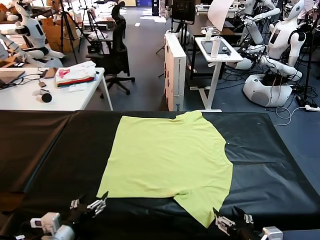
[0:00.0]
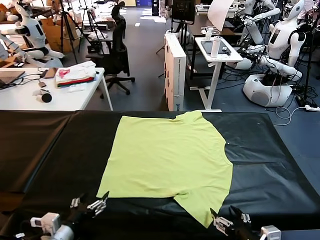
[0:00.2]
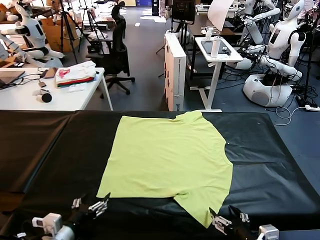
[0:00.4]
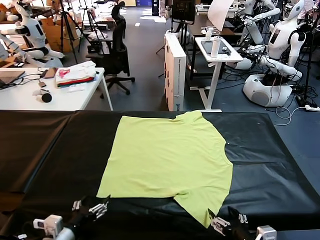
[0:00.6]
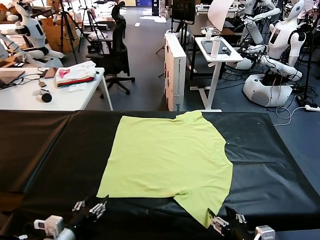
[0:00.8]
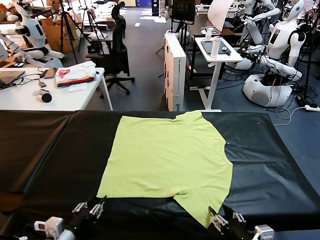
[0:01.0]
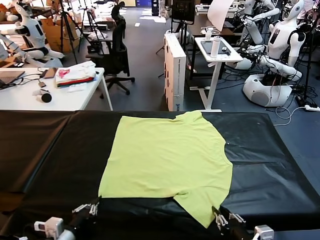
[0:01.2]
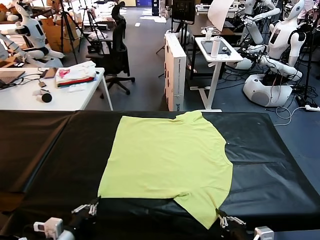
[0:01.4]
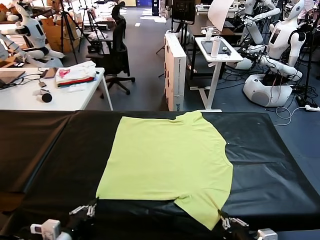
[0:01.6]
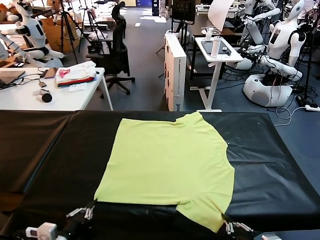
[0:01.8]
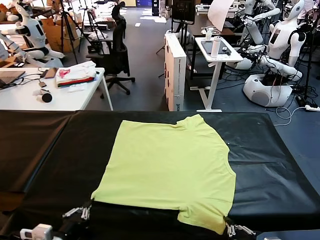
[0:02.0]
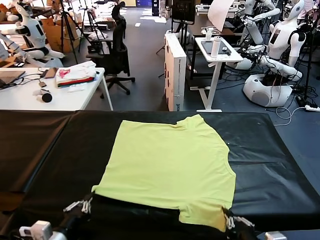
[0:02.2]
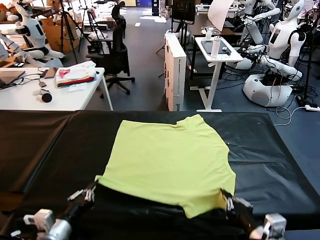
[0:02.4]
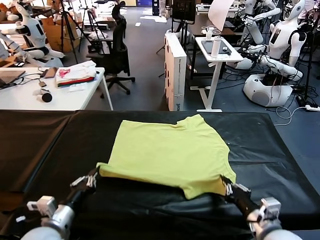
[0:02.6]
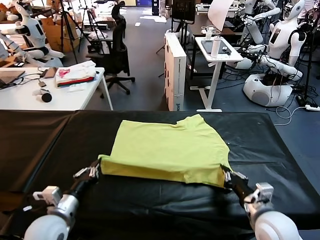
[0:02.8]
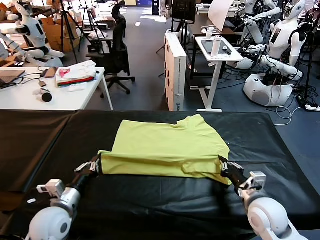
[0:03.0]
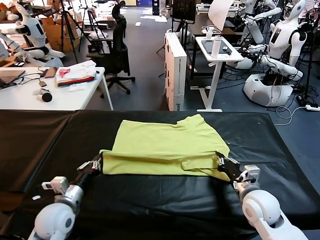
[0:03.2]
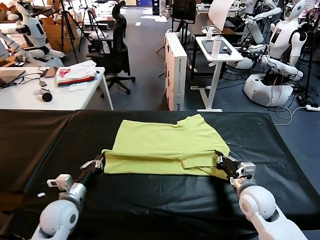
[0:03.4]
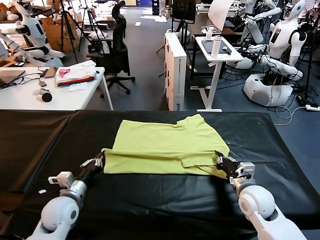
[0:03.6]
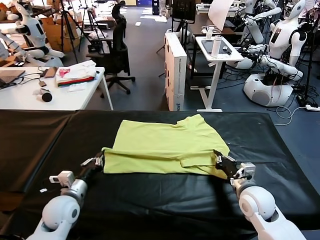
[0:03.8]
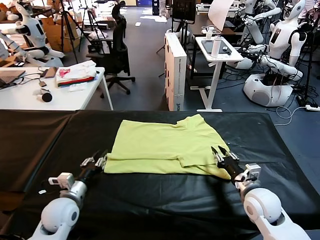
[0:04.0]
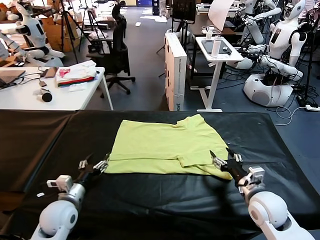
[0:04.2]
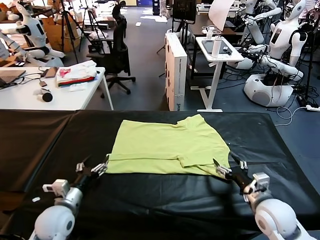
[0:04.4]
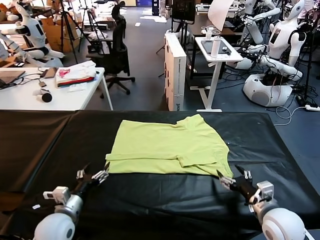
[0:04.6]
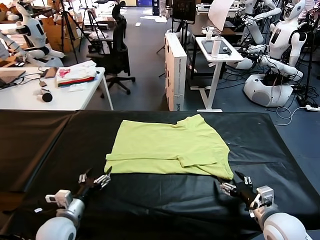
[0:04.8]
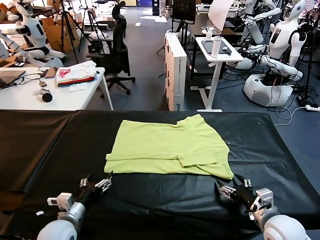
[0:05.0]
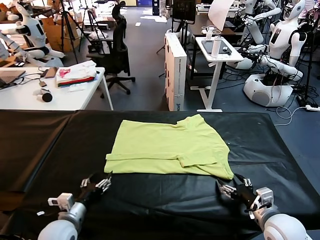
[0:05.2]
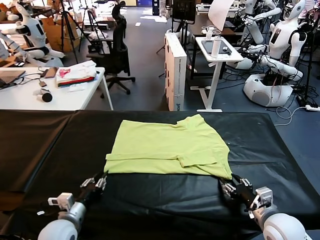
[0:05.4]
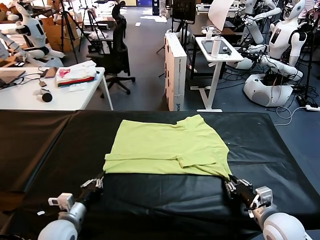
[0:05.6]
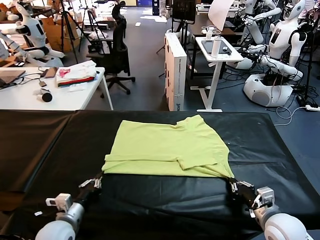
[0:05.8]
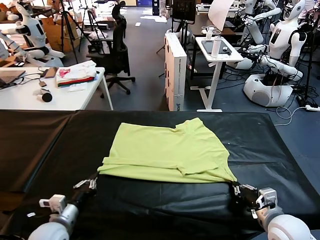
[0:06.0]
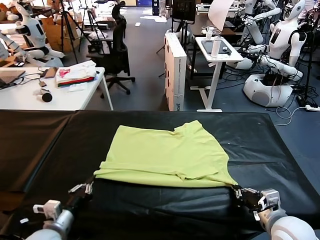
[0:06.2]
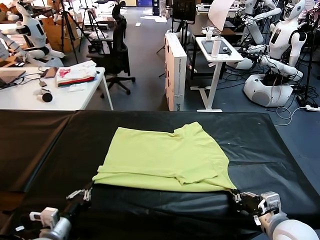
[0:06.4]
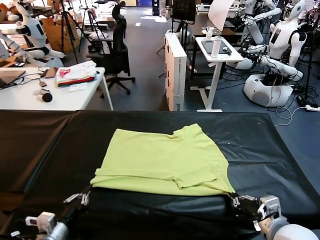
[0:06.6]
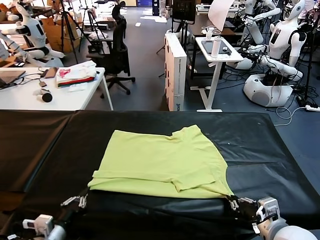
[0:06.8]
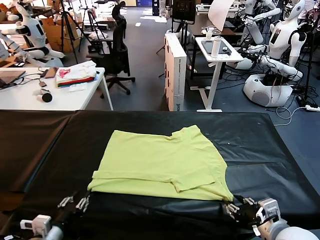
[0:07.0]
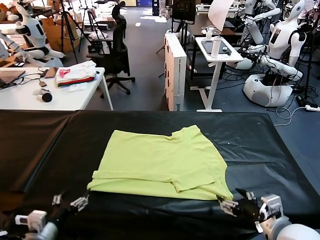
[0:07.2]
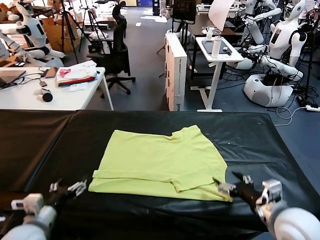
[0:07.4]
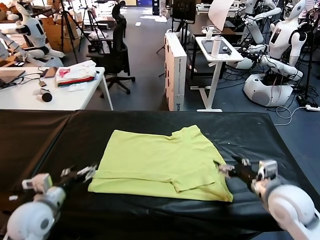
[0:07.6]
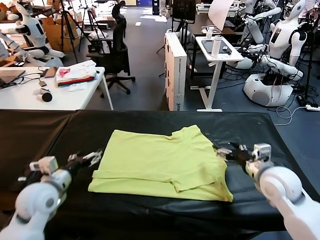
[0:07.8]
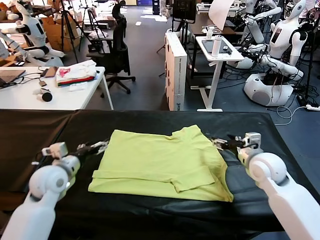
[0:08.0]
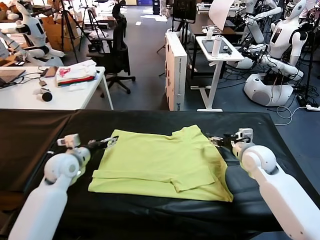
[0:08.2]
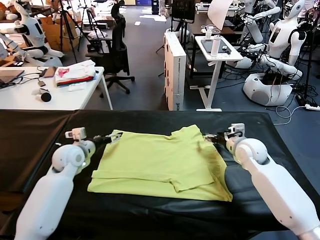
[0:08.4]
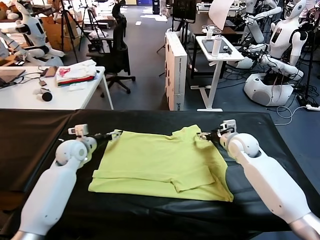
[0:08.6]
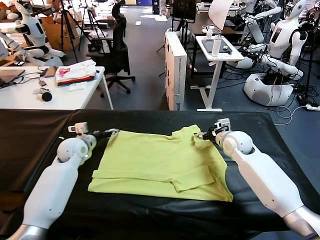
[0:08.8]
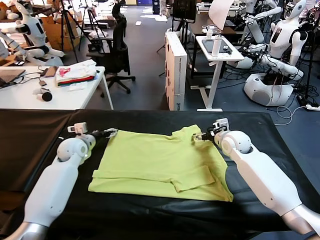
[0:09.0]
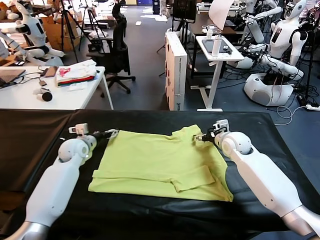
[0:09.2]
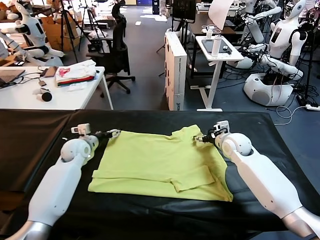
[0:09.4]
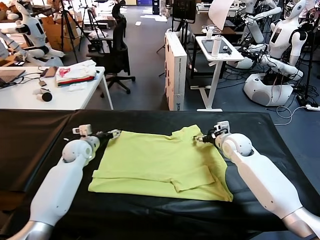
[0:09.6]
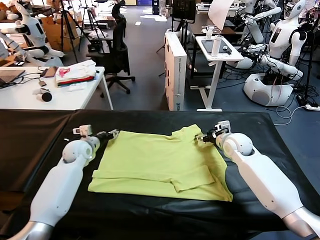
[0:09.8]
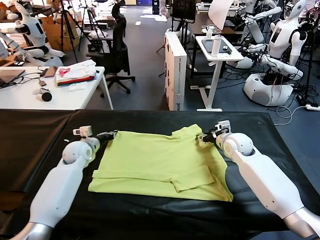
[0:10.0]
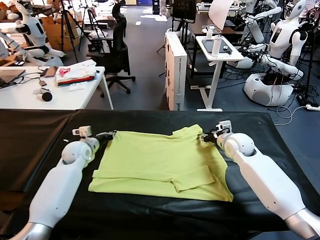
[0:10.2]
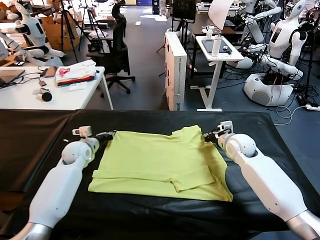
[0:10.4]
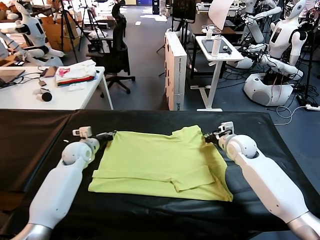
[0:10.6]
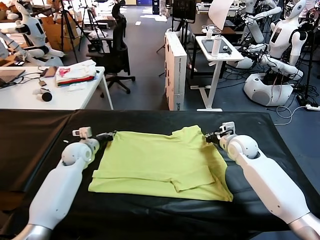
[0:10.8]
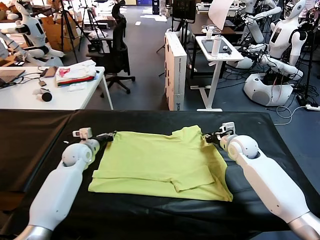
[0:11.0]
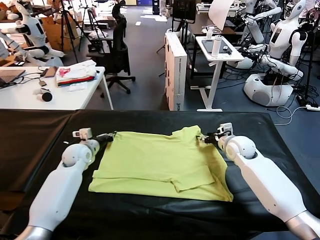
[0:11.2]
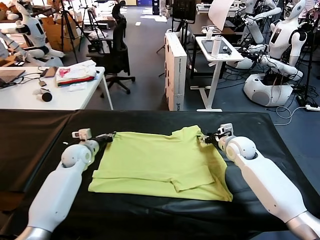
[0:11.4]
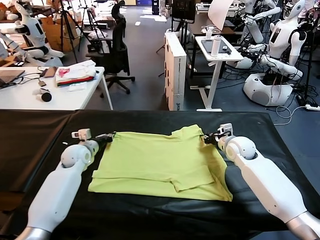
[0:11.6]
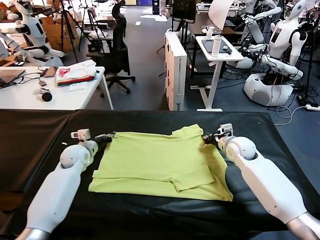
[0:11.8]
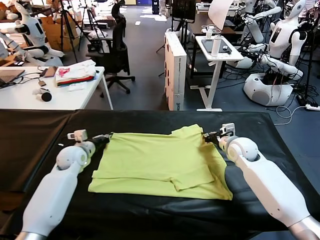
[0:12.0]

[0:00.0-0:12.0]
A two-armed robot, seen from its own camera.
Task of the whole recording: fold and organize the clothes.
Step, 0:00.0 to 0:01.6: use both grippers simultaneously to clamp the lower edge of the clothing fabric.
Step, 0:01.8 to 0:04.2: use both grippers to drag the lower edge of the fabric forward and fold it over the upper edge.
Step, 0:04.4 to 0:07.0: Drag the clothes downward with both gripper.
Step, 0:07.2 to 0:12.0: use both grippers simultaneously to clamp the upper edge of the clothing fabric.
0:01.6 to 0:03.0: The right gripper travels forward by approximately 20 cm, while the left gripper is displaced forward by approximately 15 cm.
0:03.0 to 0:04.4: The right gripper goes roughly 10 cm backward, and opens. The left gripper opens its fingers.
0:04.4 to 0:06.0: The right gripper closes up, while the left gripper closes.
0:06.0 to 0:07.6: The right gripper goes about 15 cm forward, and opens, while the left gripper travels upward and forward by about 10 cm, and opens up.
0:07.6 to 0:09.0: Both grippers move forward, about 20 cm.
0:09.0 to 0:10.4: The right gripper closes up. Meanwhile the left gripper closes.
0:10.4 to 0:12.0: The right gripper opens, then closes once more.

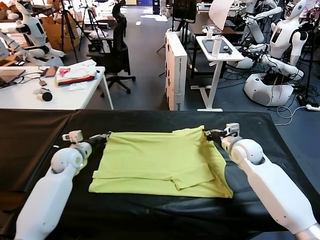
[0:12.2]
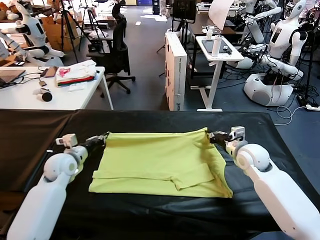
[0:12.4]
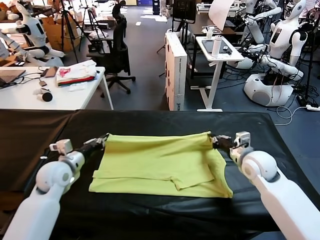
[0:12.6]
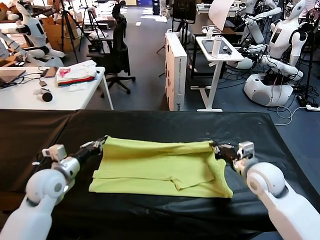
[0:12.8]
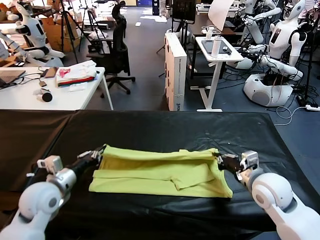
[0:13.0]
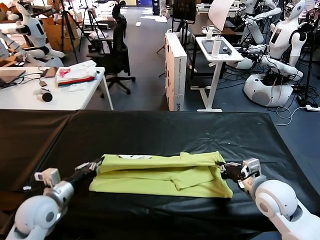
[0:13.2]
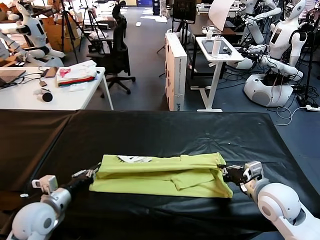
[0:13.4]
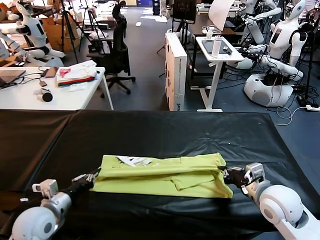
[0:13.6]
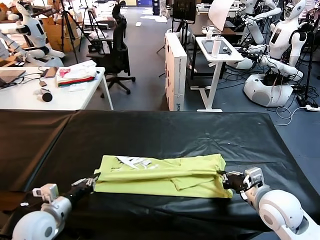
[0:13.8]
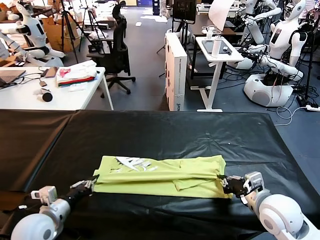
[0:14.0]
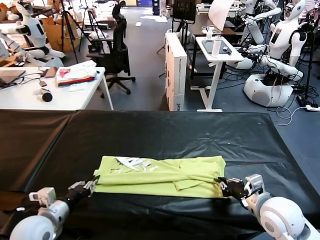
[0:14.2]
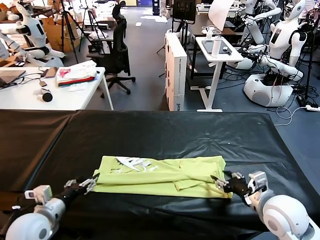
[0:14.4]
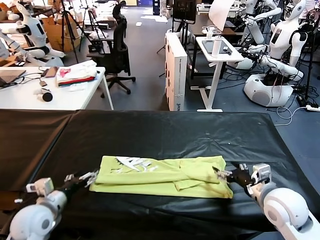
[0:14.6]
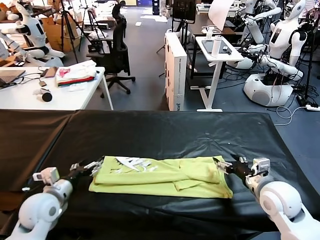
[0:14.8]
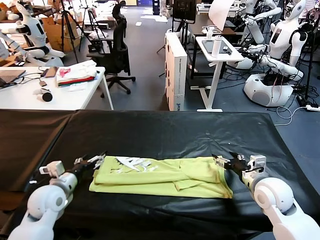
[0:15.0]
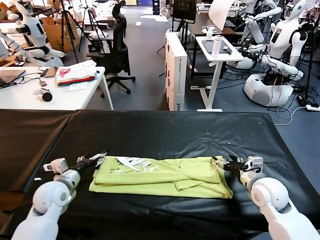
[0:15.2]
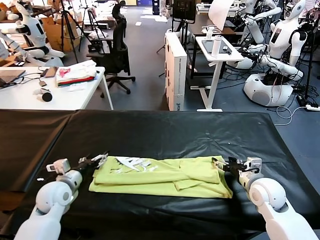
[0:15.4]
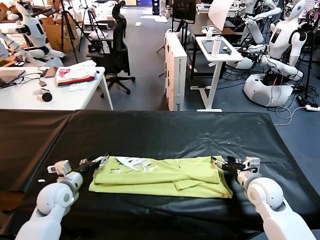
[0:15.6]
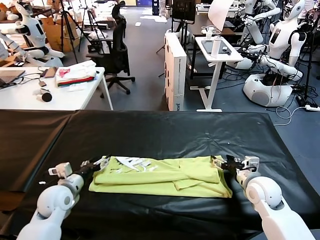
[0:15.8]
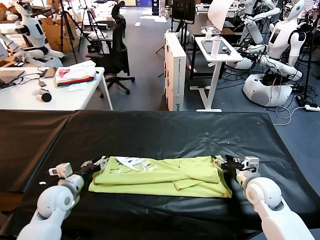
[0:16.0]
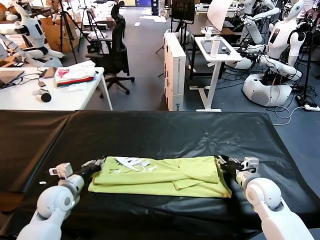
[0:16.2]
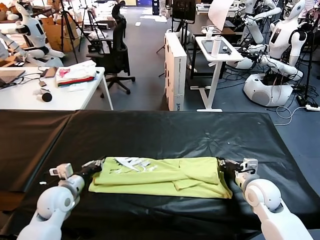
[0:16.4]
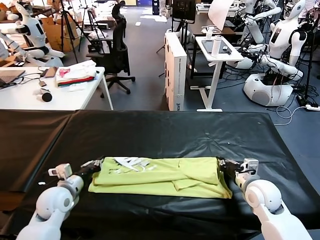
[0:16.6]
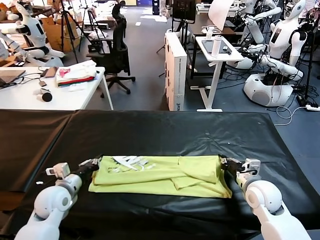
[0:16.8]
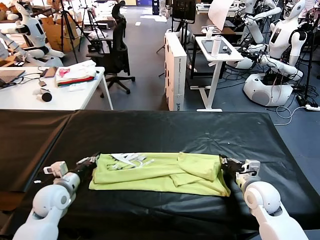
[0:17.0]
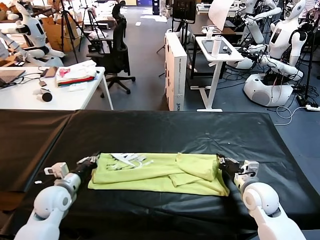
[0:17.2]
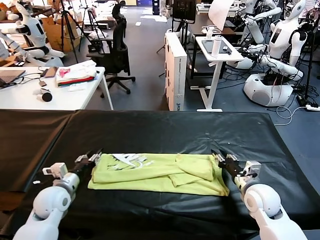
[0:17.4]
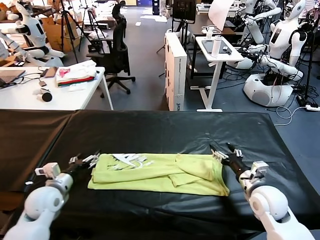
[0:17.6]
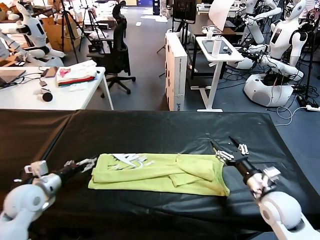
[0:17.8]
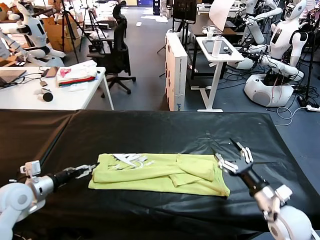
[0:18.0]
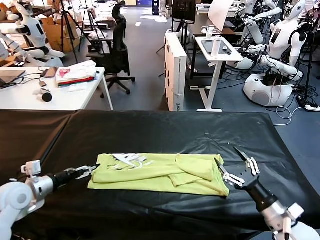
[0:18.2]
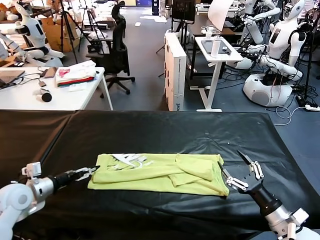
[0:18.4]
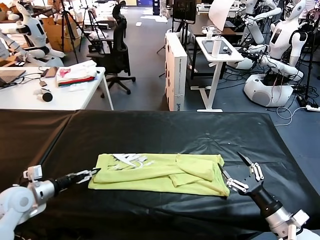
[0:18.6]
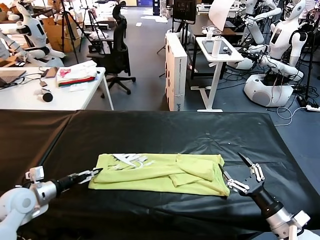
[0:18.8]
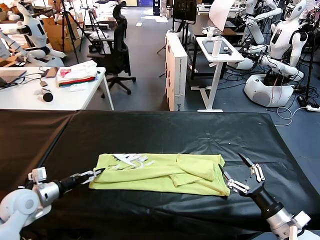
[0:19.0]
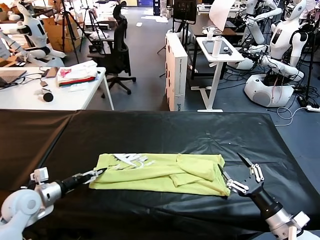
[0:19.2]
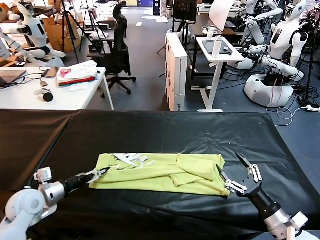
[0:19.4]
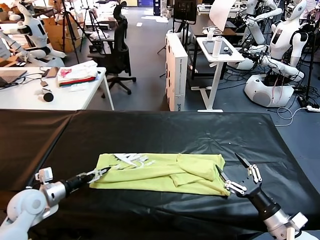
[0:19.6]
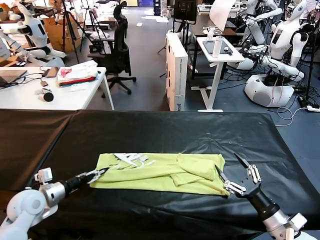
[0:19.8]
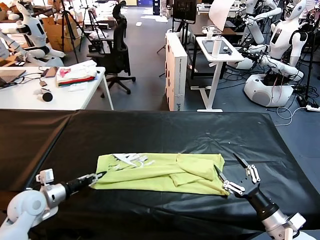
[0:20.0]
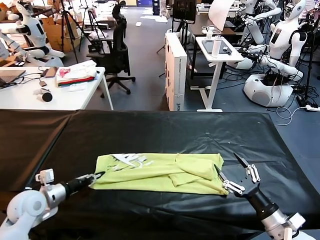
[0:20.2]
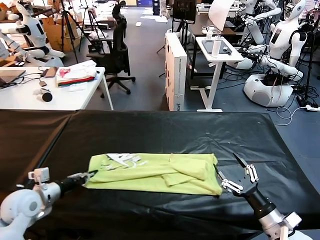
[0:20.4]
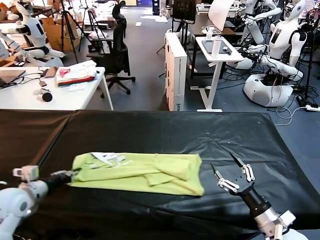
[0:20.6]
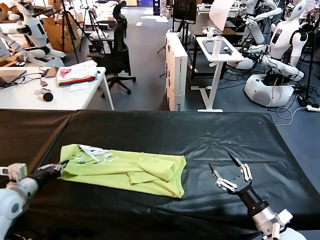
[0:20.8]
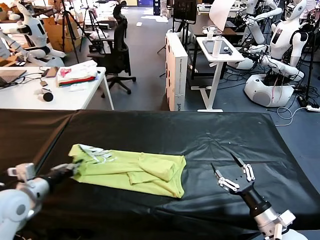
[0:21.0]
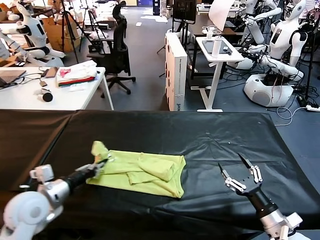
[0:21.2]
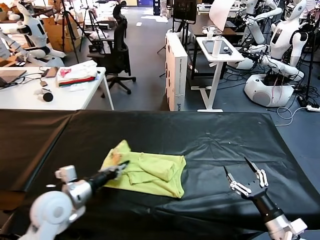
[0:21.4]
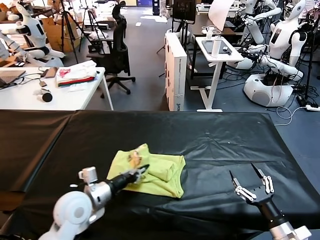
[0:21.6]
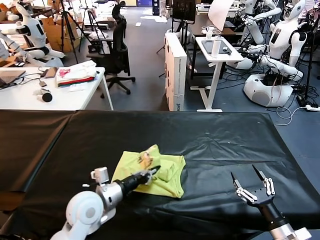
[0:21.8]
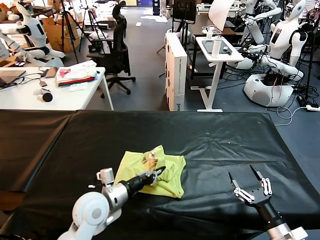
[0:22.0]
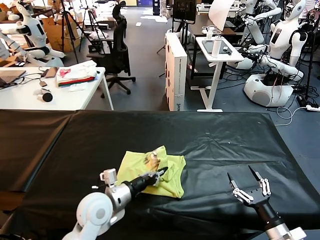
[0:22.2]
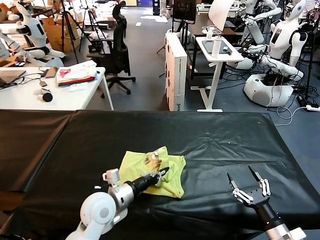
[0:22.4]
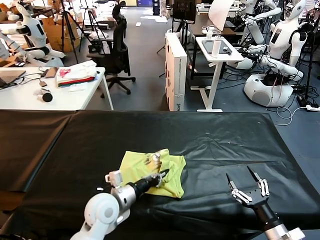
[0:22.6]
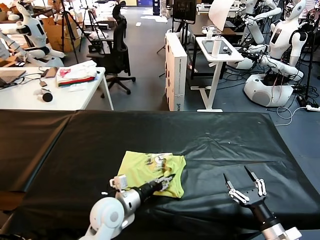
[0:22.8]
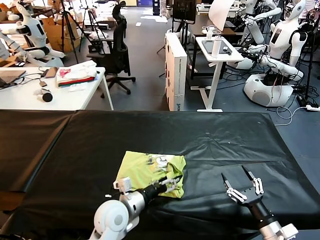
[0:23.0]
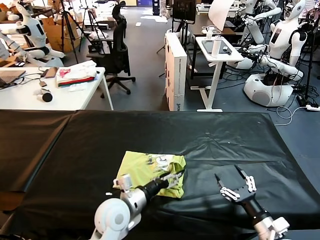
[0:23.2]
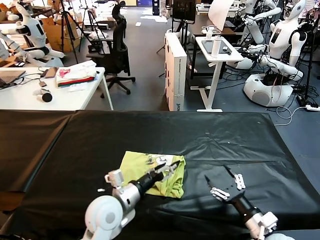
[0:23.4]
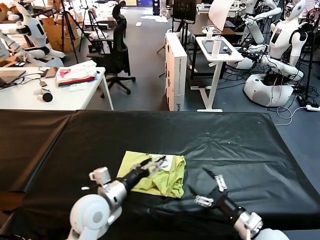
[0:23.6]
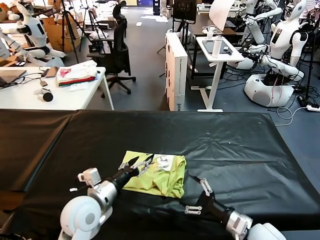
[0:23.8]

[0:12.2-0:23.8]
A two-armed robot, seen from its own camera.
Task of the whole recording: fold and organize the clothes.
Step, 0:12.2 to 0:14.4: use both grippers to drag the upper edge of the fabric backward and fold it over the lower edge.
Step, 0:14.6 to 0:20.0: use the left gripper to clamp the left edge of the fabric.
Step, 0:20.2 to 0:23.2: use the left gripper to drag the left edge of the fabric to the left and folds it over the right edge.
0:12.2 to 0:13.6: Both grippers move backward, some 20 cm.
0:13.6 to 0:15.0: Both grippers travel together forward, approximately 5 cm. The right gripper opens its fingers, while the left gripper opens.
0:15.0 to 0:16.6: The right gripper closes its fingers. Meanwhile the left gripper closes.
0:16.6 to 0:18.0: The left gripper shifts roughly 10 cm to the left and upward, and opens. The right gripper heads backward, covering approximately 10 cm, and opens.
0:18.0 to 0:19.4: There are only small adjustments of the grippers.
0:19.4 to 0:21.0: The left gripper travels upward by approximately 5 cm, and closes.
0:21.0 to 0:22.4: The left gripper travels to the right by about 20 cm.
0:22.4 to 0:23.8: The left gripper ends up approximately 5 cm from where it was, and opens its fingers; the right gripper shifts some 10 cm to the left and forward.
